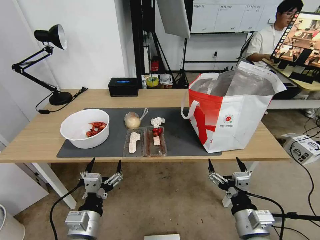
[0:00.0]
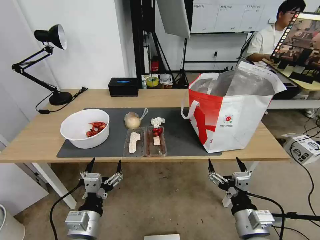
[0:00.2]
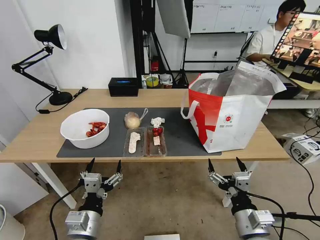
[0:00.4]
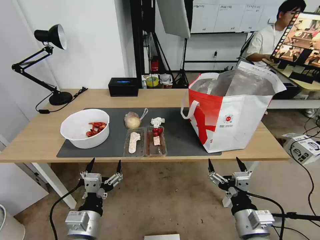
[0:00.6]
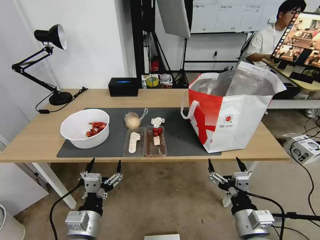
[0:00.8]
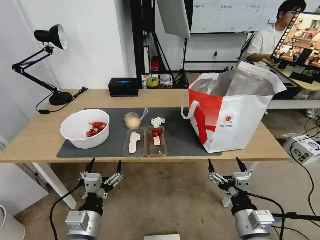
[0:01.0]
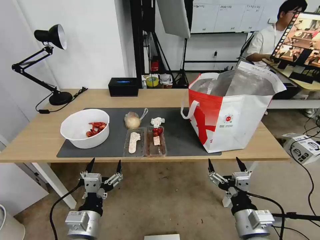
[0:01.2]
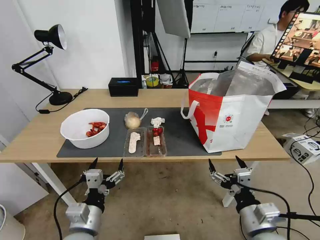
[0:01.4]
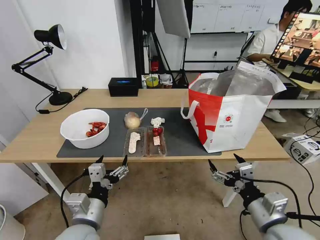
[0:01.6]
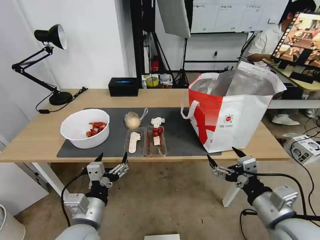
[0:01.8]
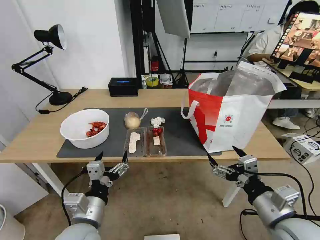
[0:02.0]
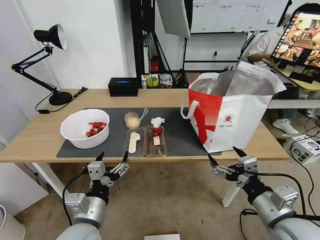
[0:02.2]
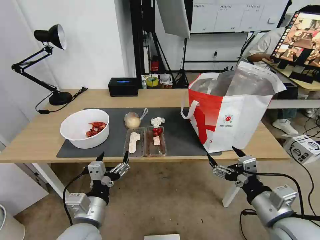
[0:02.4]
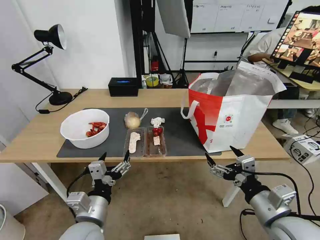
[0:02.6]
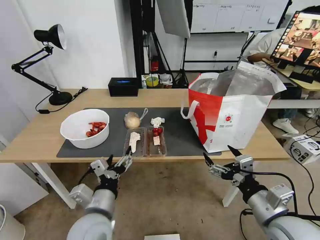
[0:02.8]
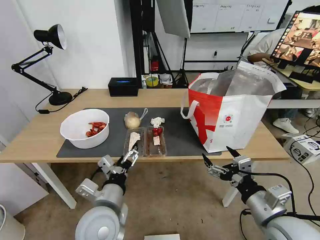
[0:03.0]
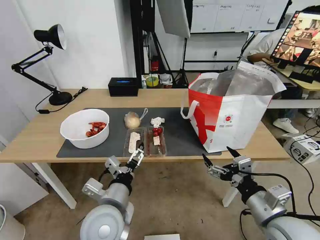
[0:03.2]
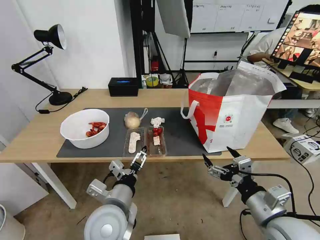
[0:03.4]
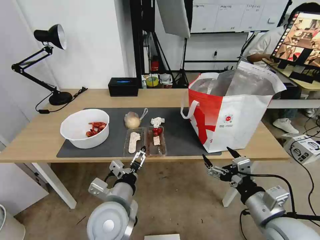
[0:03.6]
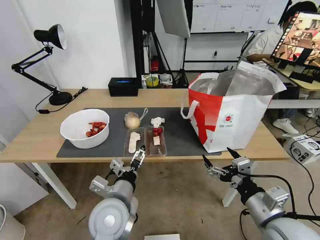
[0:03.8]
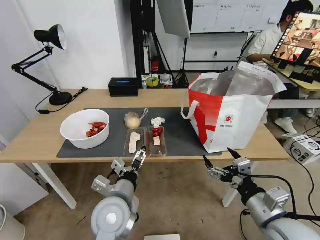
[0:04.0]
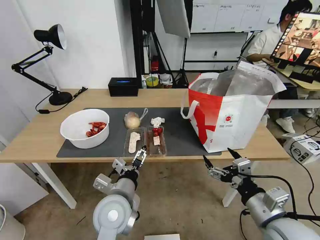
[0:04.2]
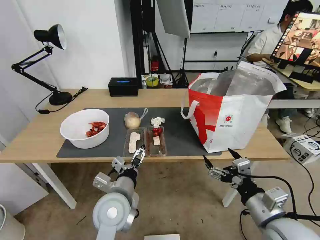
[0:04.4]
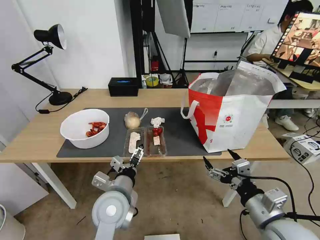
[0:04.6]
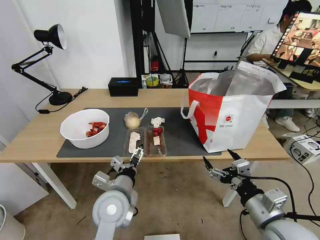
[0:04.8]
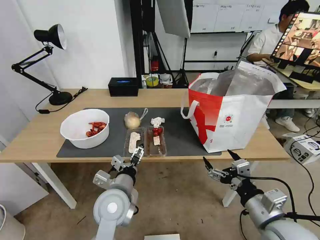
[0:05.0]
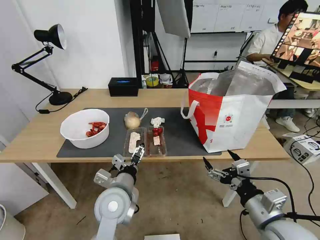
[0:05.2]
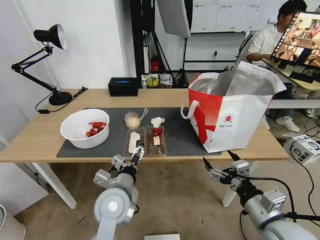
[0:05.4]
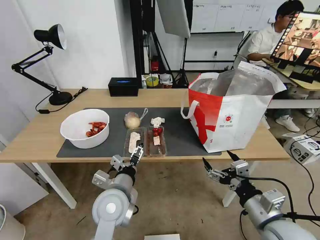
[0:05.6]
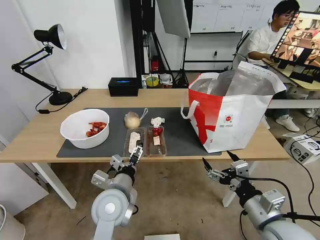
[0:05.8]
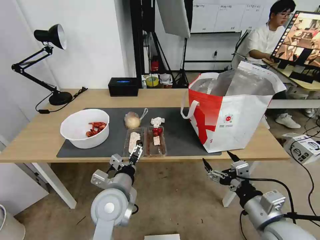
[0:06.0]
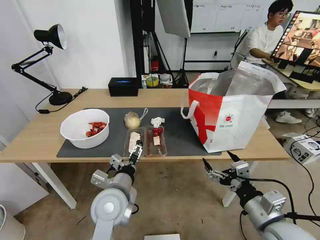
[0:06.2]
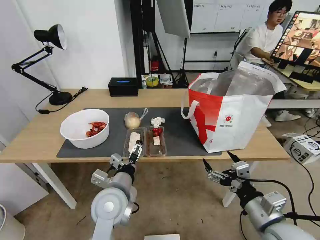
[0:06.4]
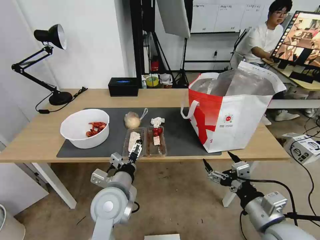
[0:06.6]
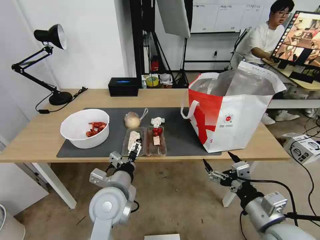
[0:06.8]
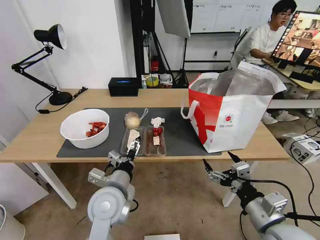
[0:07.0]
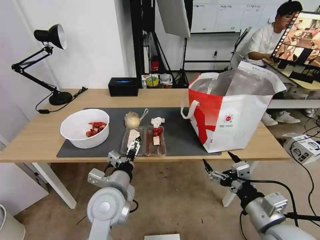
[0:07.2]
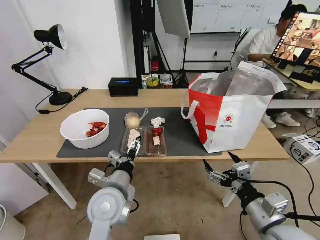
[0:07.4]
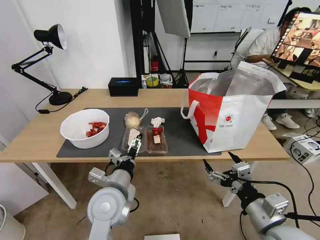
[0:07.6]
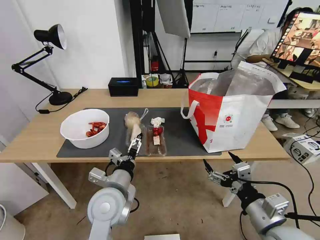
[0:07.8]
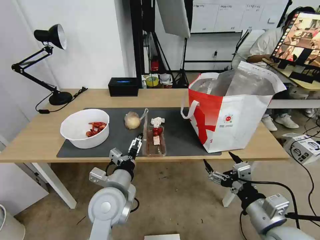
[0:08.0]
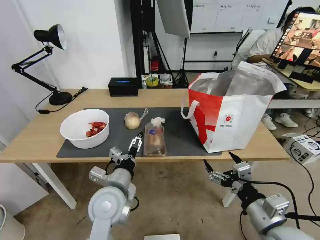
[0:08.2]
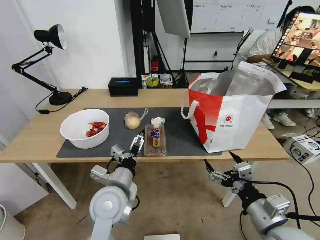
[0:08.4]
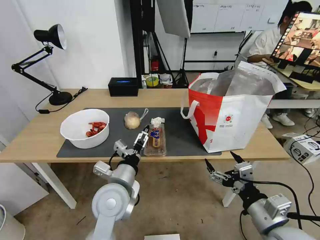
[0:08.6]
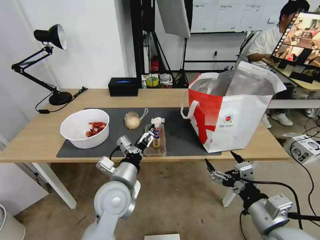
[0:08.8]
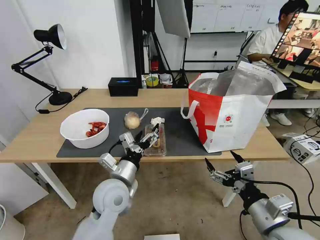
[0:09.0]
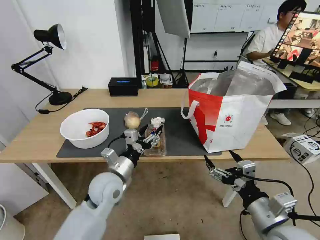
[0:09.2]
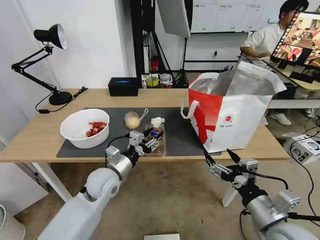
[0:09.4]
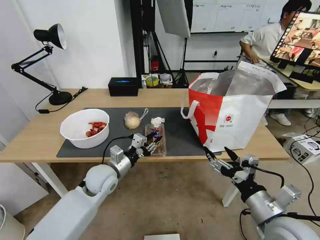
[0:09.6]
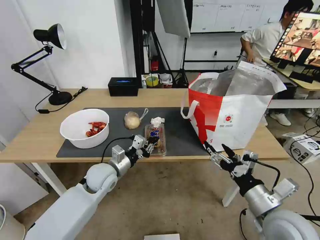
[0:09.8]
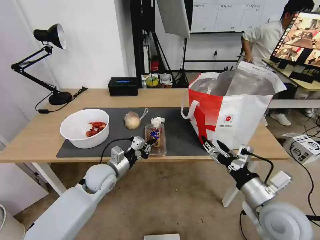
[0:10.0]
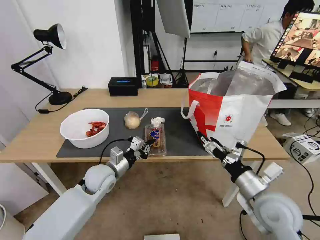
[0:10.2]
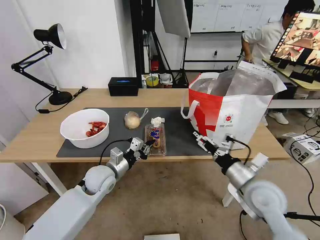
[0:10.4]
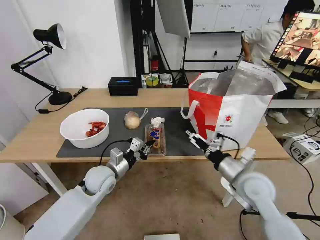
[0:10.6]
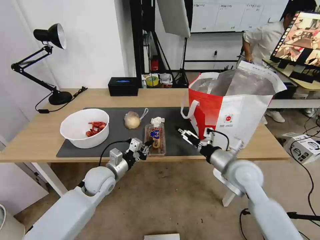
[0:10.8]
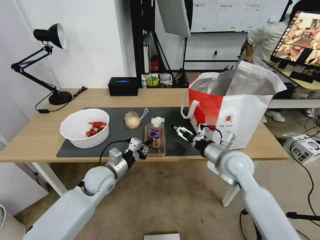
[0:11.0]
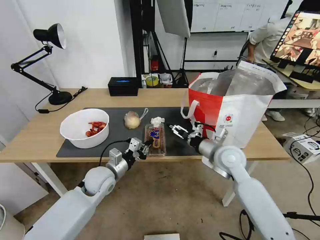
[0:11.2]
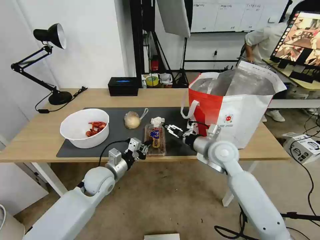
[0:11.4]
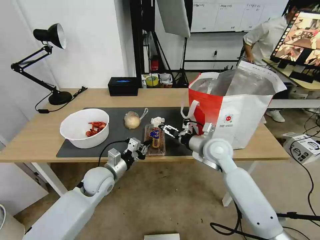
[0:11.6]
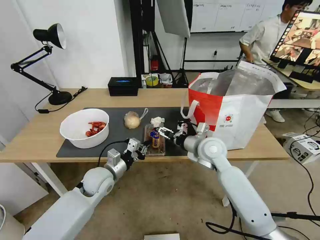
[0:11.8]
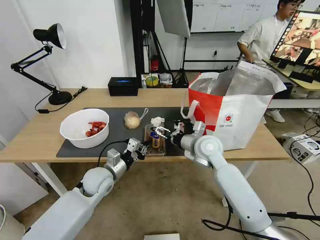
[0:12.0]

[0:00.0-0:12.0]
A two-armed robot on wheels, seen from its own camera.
Task of the whole recording: Pick up the trash from the table and place it into the takeout bag.
0:01.6 to 0:03.0: The left gripper moves about 5 cm.
0:03.0 to 0:04.4: The left gripper ends up roughly 5 cm from where it was.
0:04.4 to 0:07.6: The grippers make only small movements.
0:09.0 to 0:10.4: The right gripper travels forward by some 10 cm; the left gripper is displaced forward, to the left and downward by roughly 10 cm, and closes up.
0:10.4 to 0:12.0: The right gripper goes about 20 cm forward and to the left.

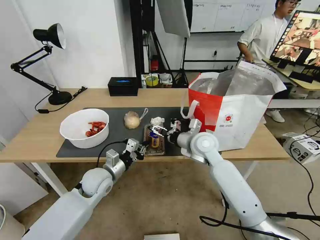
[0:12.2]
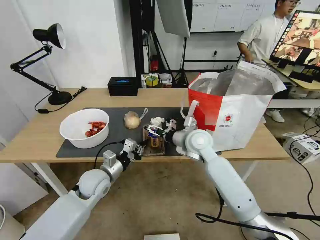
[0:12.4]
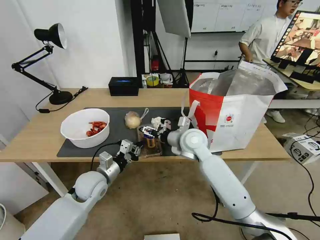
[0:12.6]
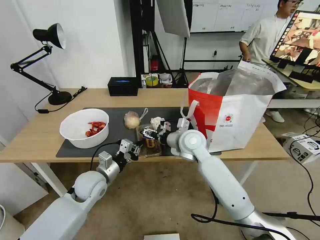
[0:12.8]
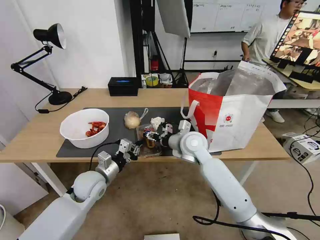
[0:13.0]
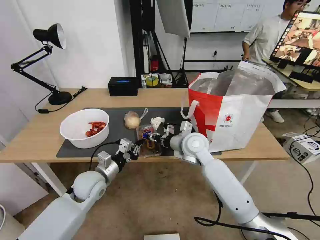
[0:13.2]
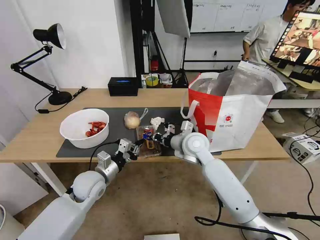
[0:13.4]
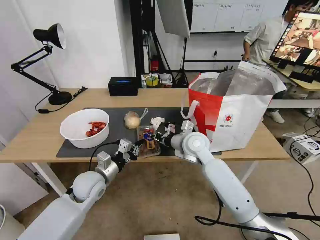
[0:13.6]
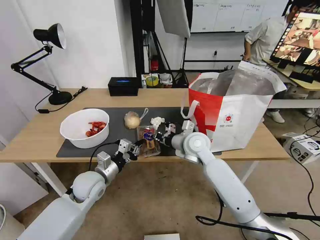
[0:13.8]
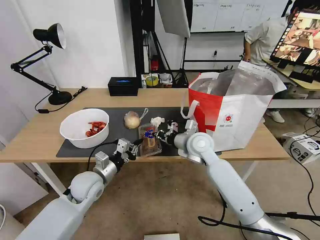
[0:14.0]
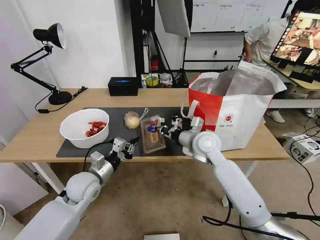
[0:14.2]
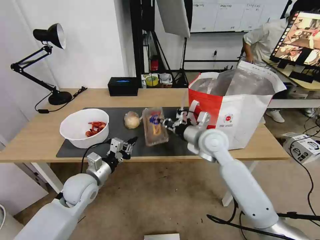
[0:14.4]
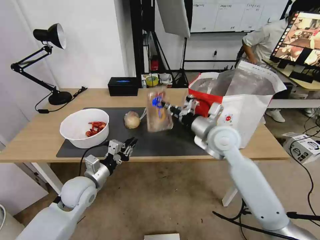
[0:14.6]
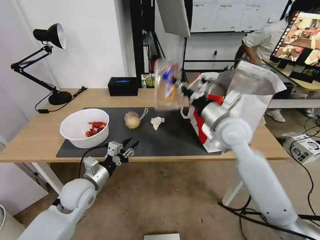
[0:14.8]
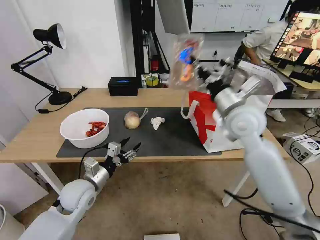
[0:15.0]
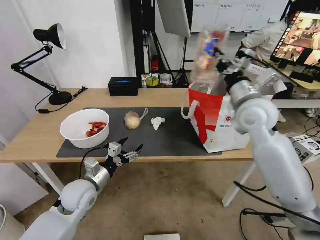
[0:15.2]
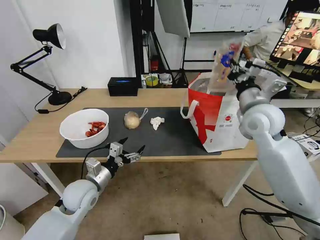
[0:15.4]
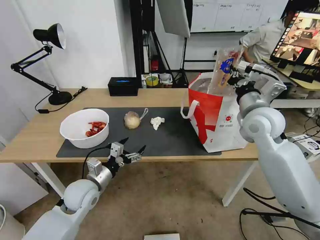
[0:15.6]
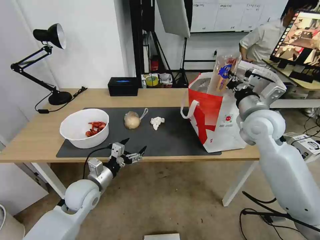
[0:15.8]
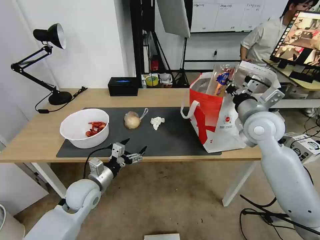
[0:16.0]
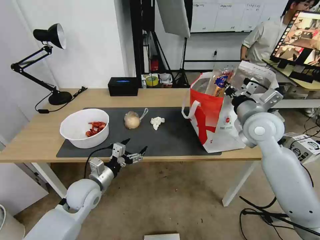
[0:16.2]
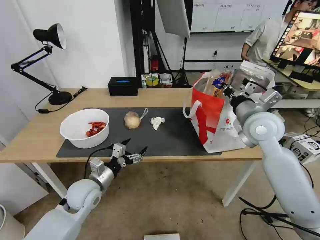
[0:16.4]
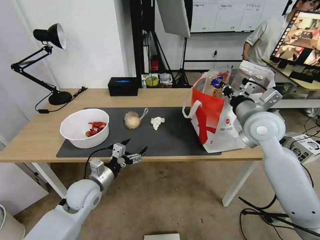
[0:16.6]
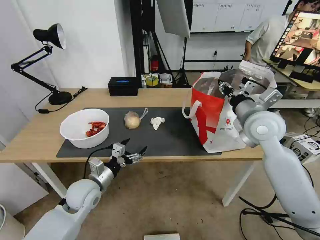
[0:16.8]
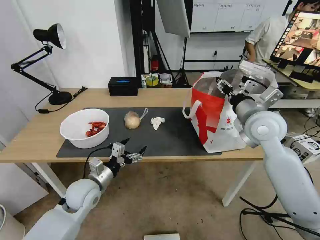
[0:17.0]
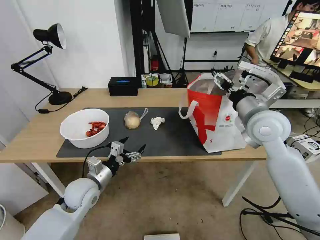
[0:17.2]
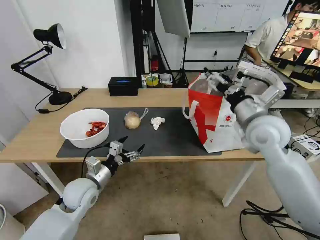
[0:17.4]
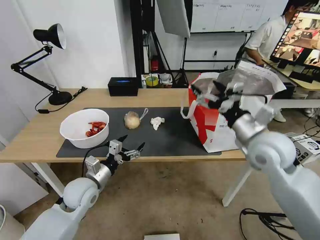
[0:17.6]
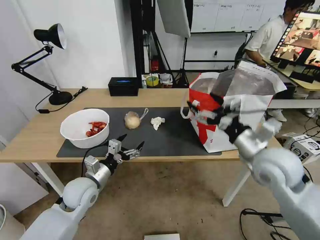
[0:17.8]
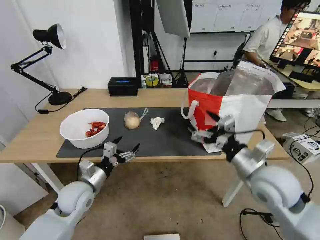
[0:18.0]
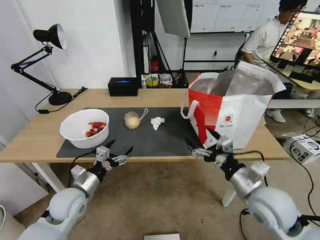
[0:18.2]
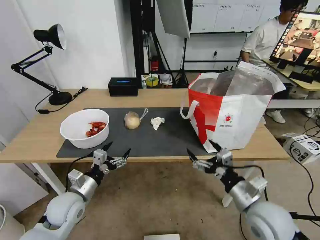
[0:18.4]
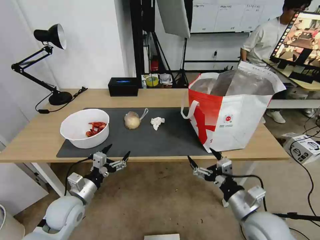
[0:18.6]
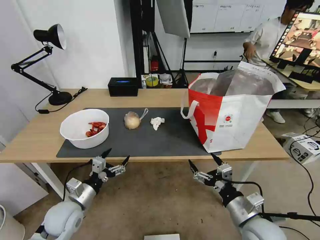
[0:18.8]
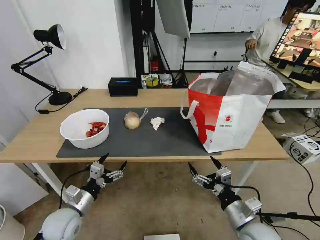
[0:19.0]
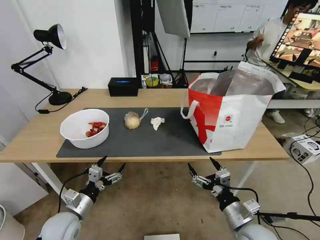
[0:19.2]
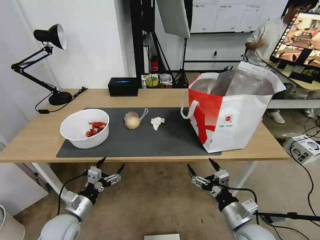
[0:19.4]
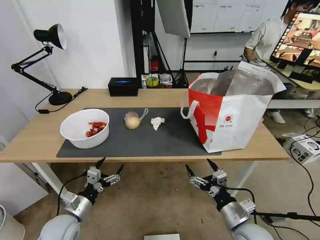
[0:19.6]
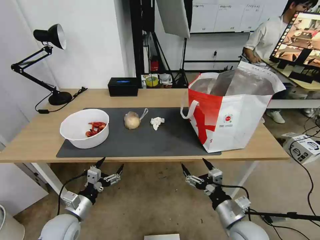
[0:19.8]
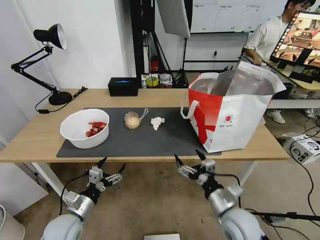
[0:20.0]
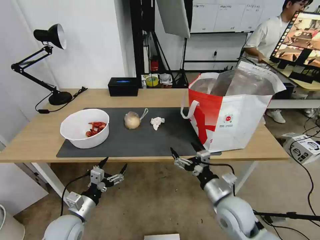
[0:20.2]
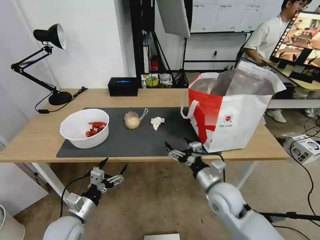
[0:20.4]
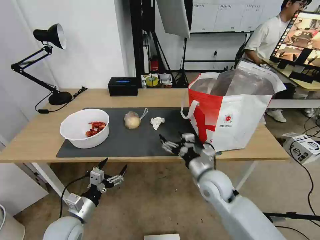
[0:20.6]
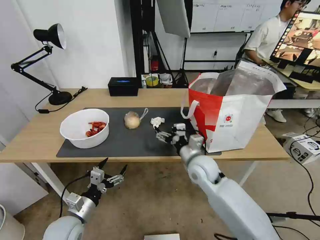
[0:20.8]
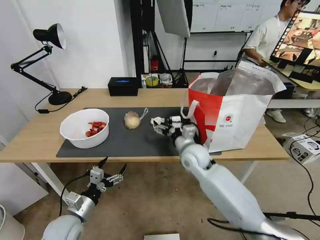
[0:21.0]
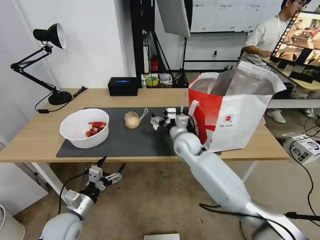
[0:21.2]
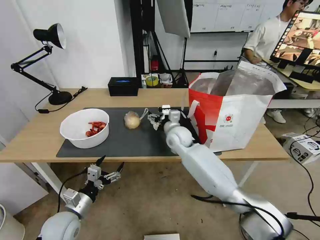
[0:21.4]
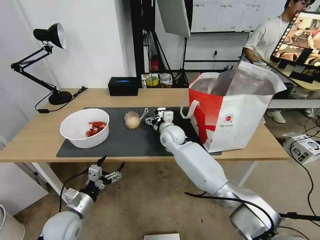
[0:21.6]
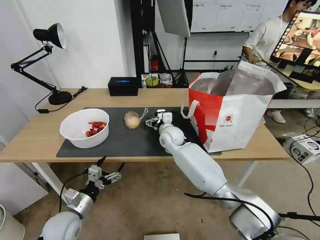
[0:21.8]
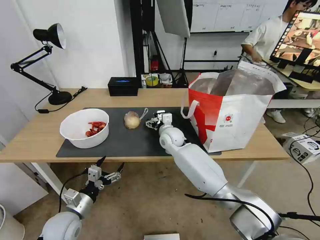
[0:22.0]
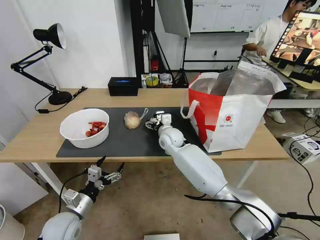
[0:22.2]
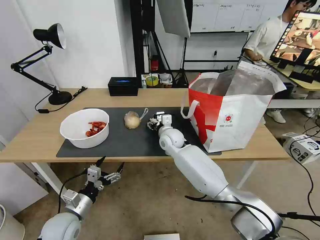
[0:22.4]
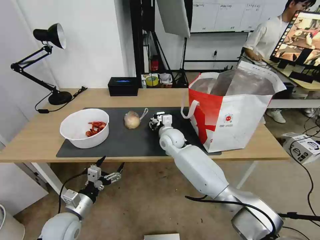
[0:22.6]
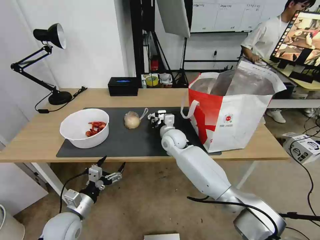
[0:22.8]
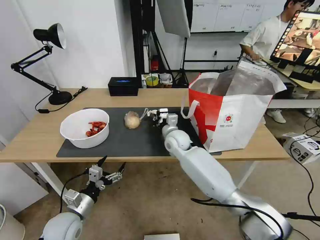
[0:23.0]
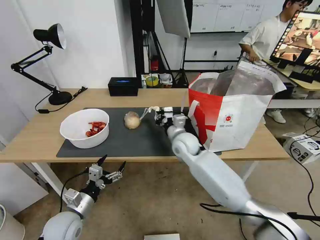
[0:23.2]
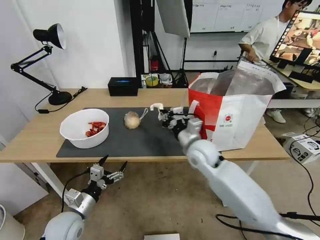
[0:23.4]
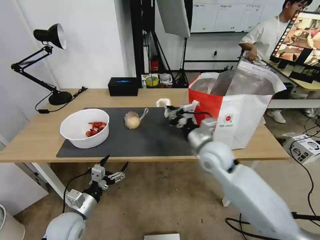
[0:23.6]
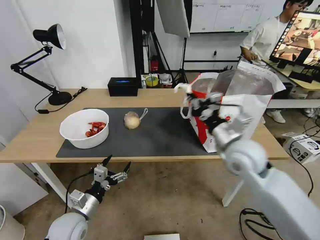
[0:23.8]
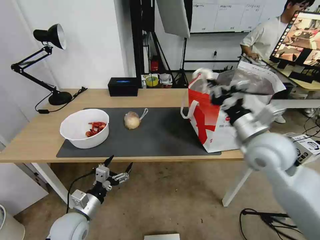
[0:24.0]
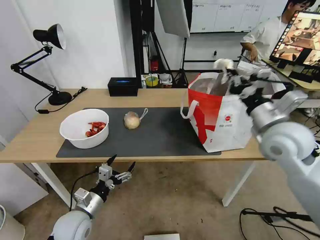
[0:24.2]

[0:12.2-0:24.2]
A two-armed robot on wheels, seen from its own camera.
Task of the whole recording: Pick up the trash from the table and place it into the takeout bag.
0:12.2 to 0:13.8: The right gripper closes its fingers.
0:13.8 to 0:15.2: The left gripper opens. Meanwhile the right gripper goes about 20 cm upward and to the right.
0:16.6 to 0:18.2: The right gripper goes roughly 20 cm backward and downward, and opens its fingers.
0:18.2 to 0:19.8: The left gripper travels backward and downward by approximately 10 cm. Meanwhile the right gripper is displaced downward and backward by about 15 cm.
0:19.8 to 0:21.2: The right gripper is displaced forward and to the left by approximately 30 cm.
0:21.2 to 0:22.6: The right gripper moves to the left, about 5 cm, and closes.
0:22.6 to 0:24.2: The right gripper goes roughly 35 cm to the right, upward and backward, and closes.
